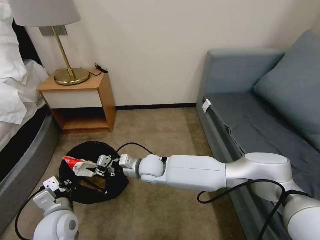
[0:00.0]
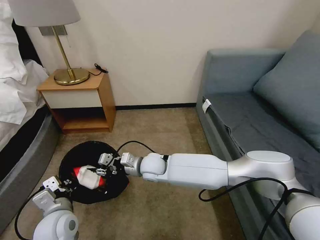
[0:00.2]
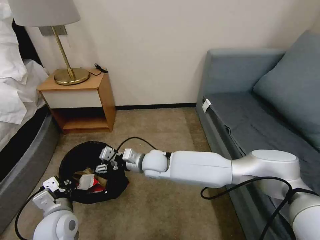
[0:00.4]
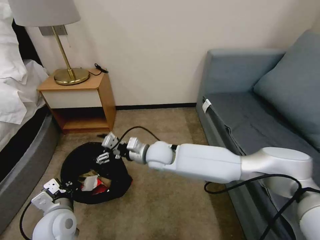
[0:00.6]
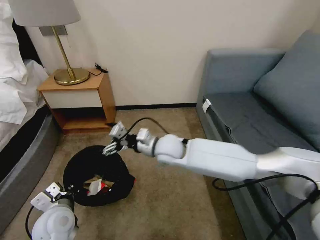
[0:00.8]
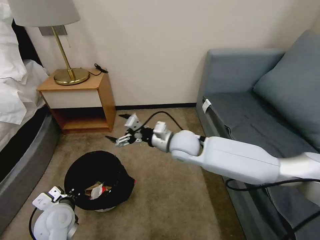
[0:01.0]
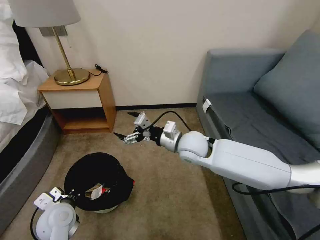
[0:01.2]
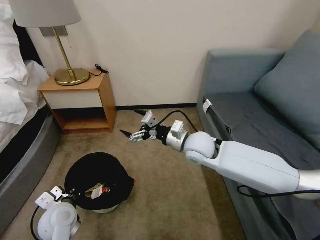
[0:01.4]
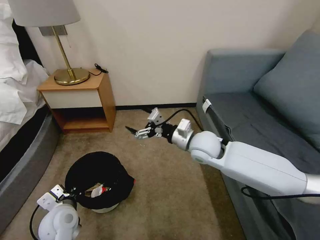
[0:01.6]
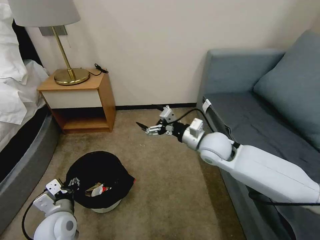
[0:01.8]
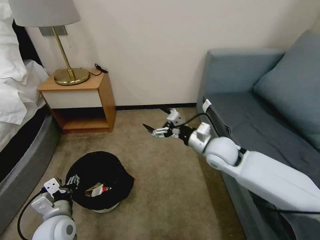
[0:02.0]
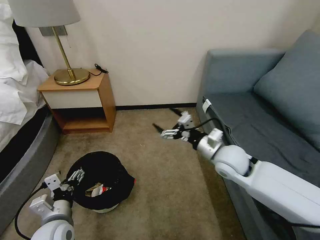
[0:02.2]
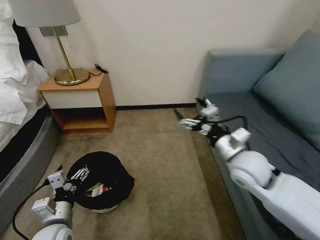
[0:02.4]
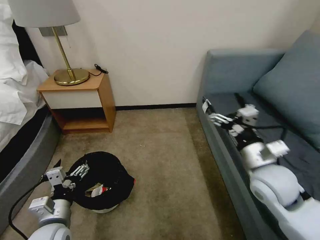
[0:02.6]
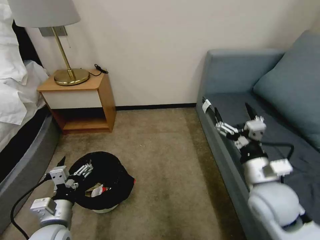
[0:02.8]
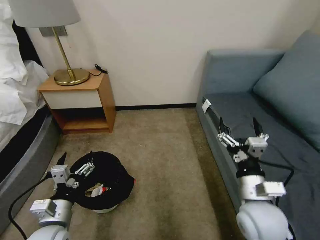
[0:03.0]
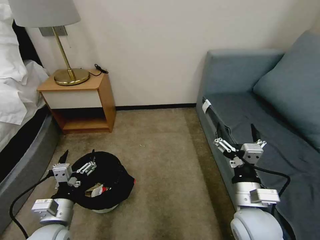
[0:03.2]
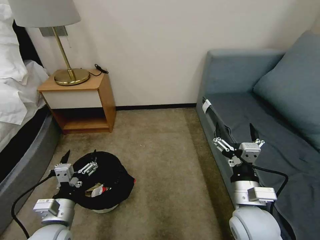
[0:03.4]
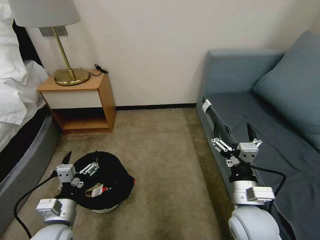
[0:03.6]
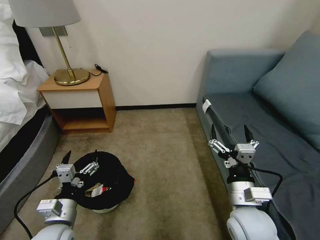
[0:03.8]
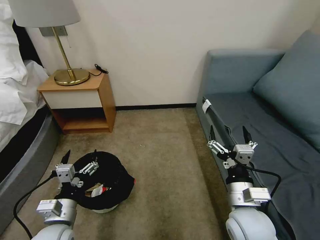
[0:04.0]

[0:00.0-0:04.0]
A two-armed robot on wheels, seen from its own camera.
Task of the whole recording: Pick up the trash bin, then pick up the garbage on the floor and place it into the trash bin.
0:00.0 to 0:01.4: The right gripper heads to the right and upward, covering about 20 cm, and opens up.
0:01.4 to 0:02.6: The right gripper travels to the right and backward by some 20 cm. The left gripper is displaced backward by about 5 cm, and opens up.
0:02.6 to 0:04.0: The right gripper is displaced backward, downward and to the left by some 15 cm.

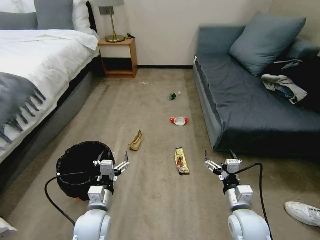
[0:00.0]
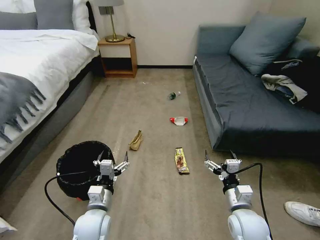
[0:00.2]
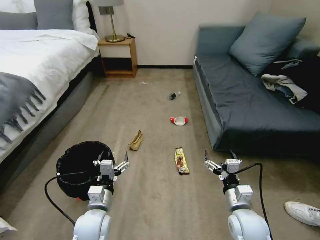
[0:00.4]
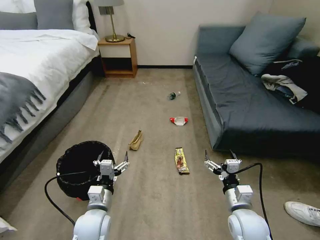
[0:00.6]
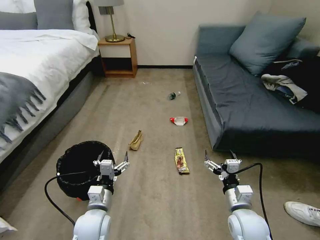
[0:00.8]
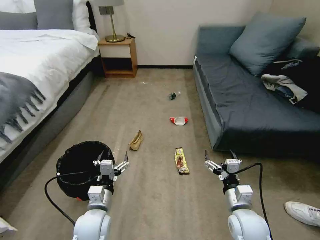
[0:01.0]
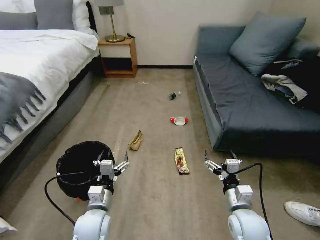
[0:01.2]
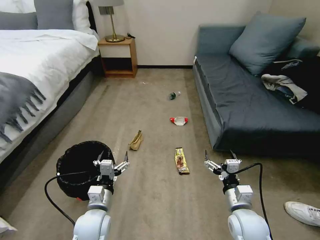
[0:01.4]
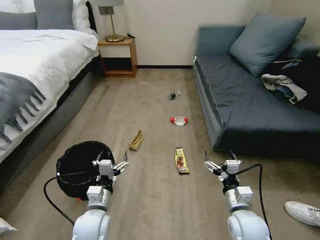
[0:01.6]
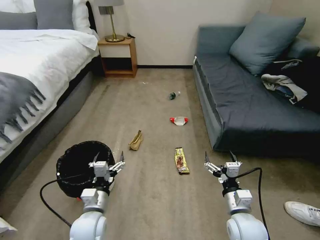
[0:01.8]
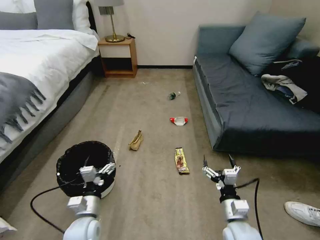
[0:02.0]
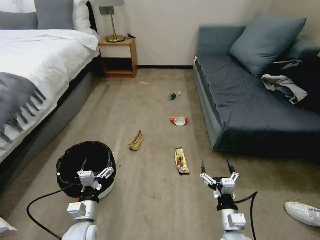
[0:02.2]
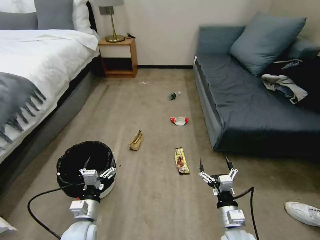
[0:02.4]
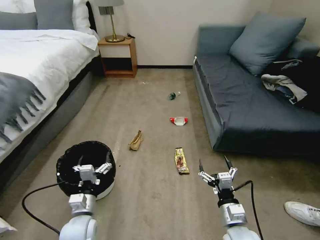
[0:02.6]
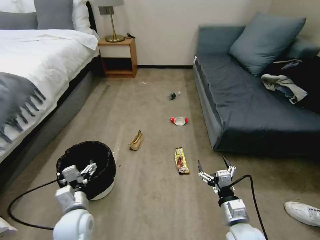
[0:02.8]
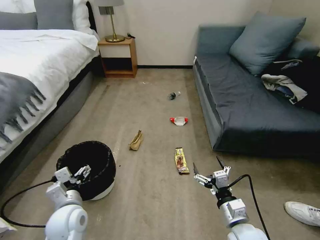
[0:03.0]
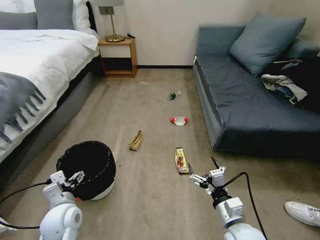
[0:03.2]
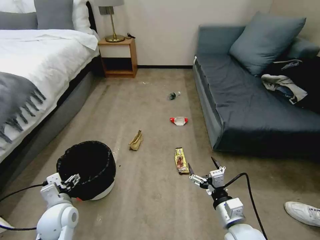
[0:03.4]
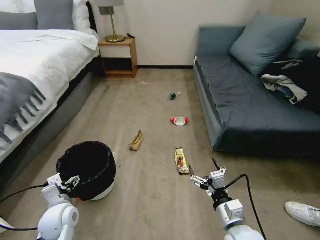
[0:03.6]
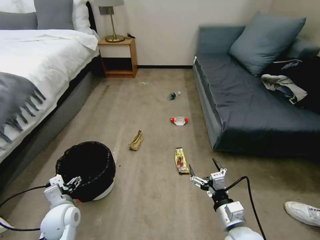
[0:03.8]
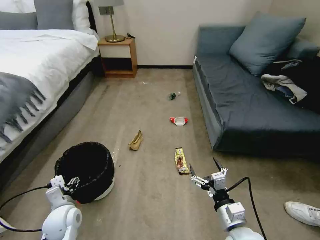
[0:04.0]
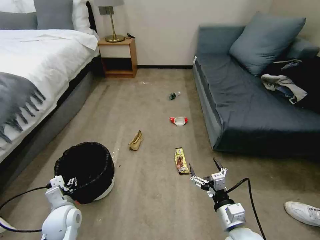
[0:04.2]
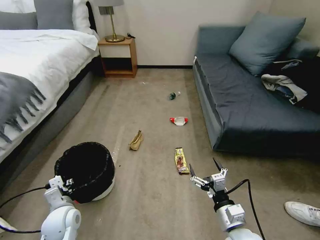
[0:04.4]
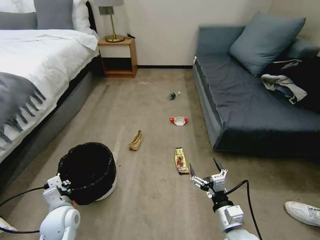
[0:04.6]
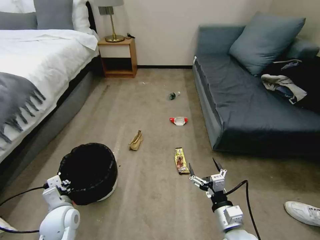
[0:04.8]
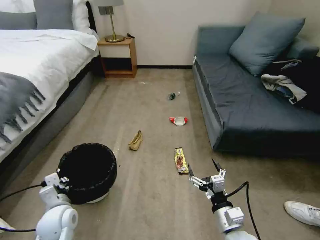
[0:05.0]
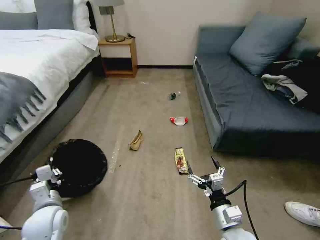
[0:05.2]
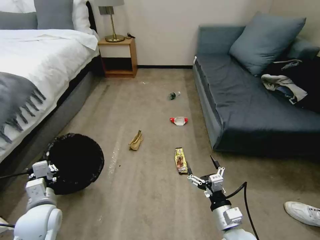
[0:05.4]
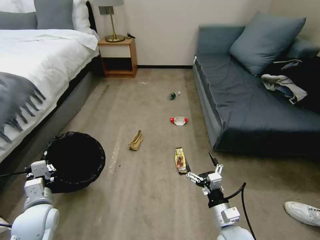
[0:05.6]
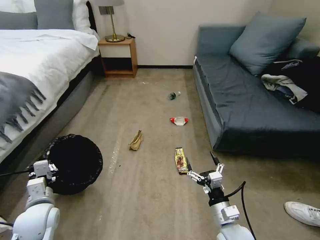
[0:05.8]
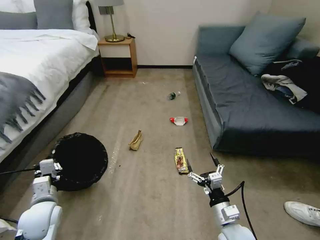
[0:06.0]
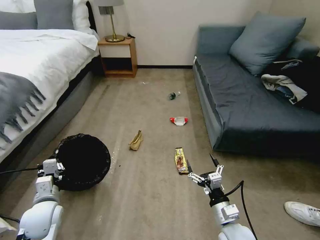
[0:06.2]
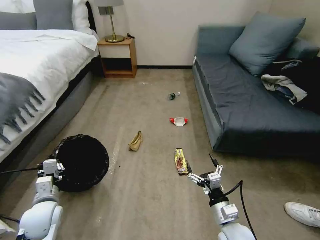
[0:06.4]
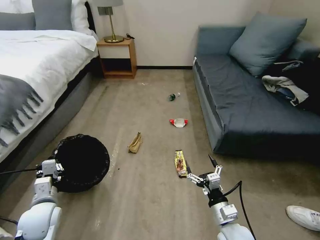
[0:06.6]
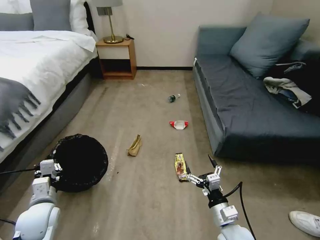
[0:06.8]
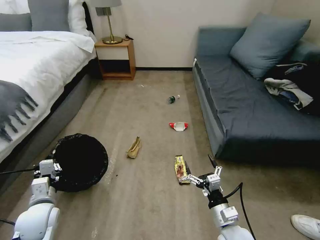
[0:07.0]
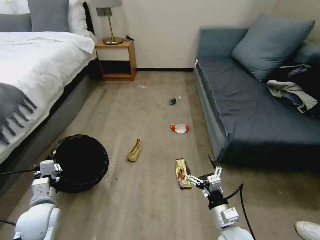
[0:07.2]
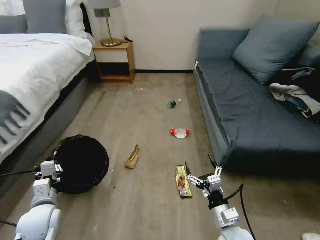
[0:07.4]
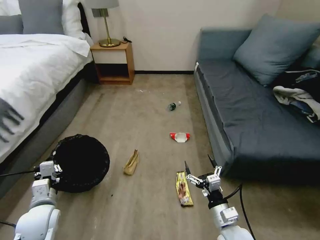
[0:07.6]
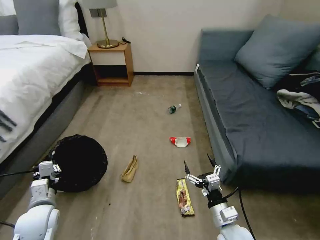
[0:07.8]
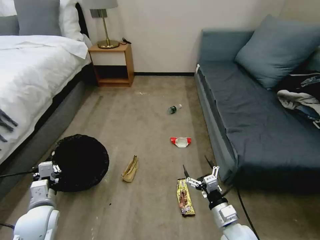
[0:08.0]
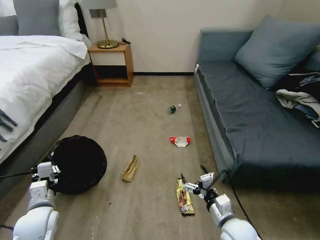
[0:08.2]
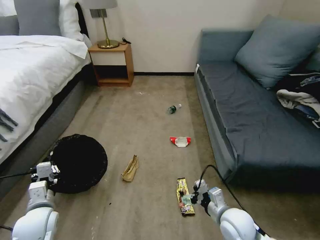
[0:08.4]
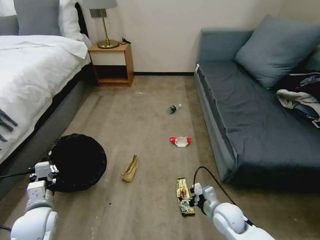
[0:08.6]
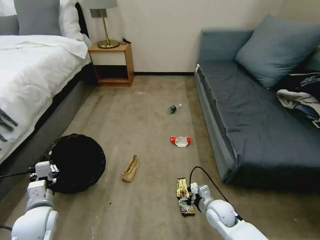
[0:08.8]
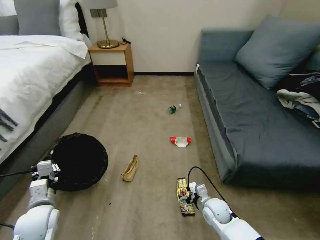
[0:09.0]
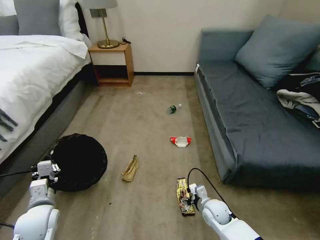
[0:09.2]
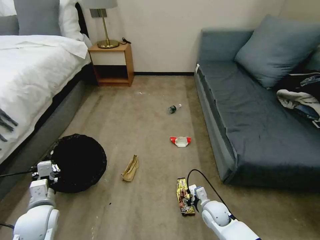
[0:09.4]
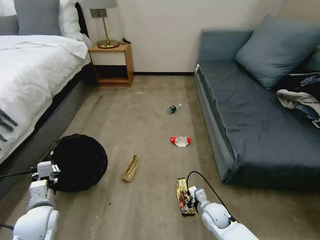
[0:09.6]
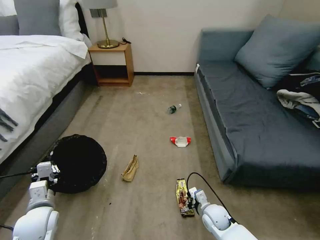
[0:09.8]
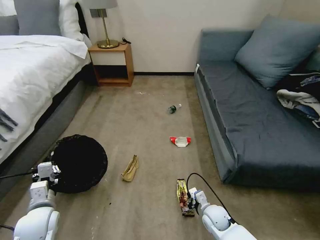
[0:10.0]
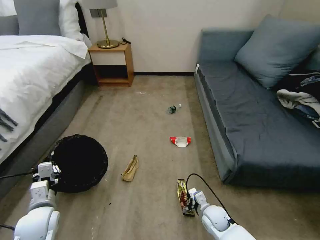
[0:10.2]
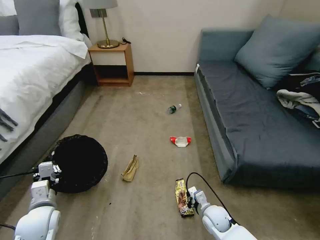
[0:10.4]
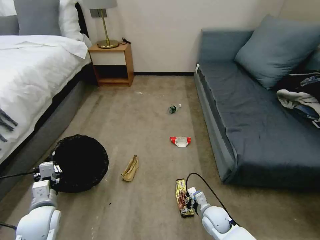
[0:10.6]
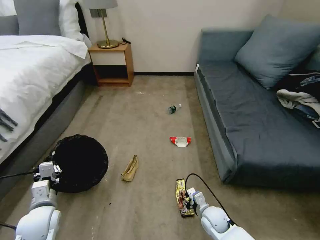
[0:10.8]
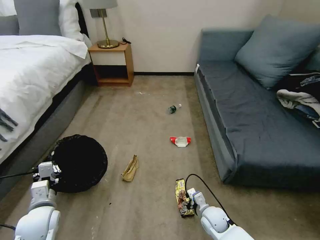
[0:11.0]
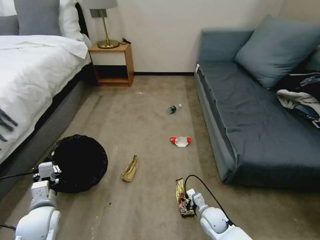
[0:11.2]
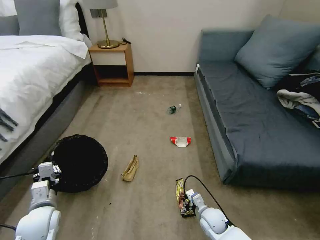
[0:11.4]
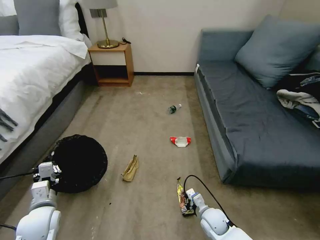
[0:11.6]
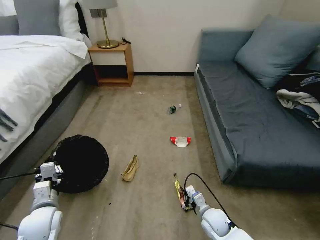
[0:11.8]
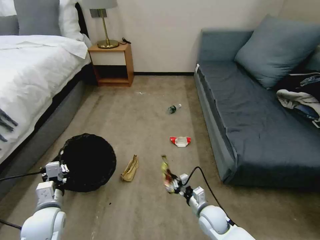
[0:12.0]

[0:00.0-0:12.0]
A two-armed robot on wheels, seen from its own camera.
Task of the whole recording: Pick up the trash bin, then pick up the garbage on the floor and place it into the trash bin.
0:01.6 to 0:03.0: The left gripper travels to the left by approximately 5 cm.
0:03.0 to 0:04.4: The left gripper ends up approximately 5 cm from where it was, and closes its fingers.
0:04.4 to 0:06.0: The left gripper shifts by roughly 5 cm, and closes.
0:07.6 to 0:09.0: The right gripper goes some 15 cm forward and downward.
0:09.0 to 0:10.4: The right gripper closes its fingers.
0:10.4 to 0:12.0: The right gripper opens, then closes again.

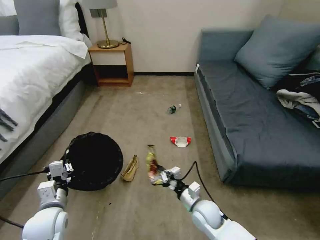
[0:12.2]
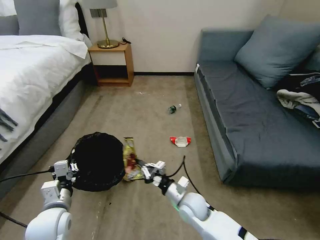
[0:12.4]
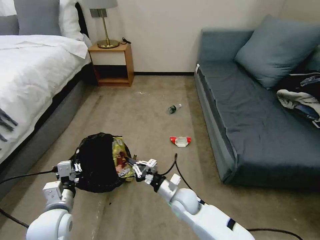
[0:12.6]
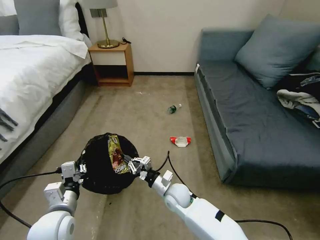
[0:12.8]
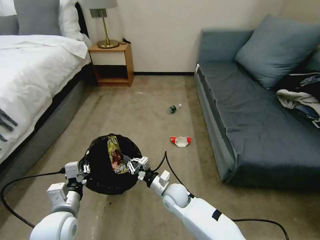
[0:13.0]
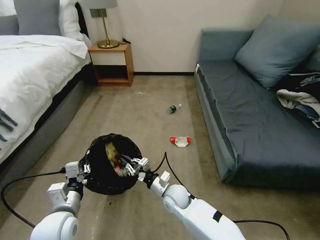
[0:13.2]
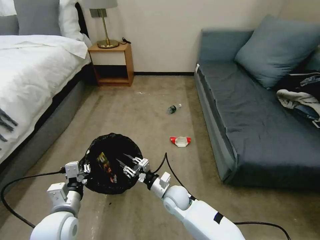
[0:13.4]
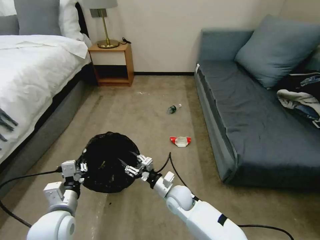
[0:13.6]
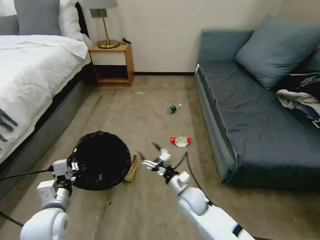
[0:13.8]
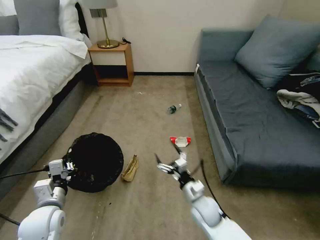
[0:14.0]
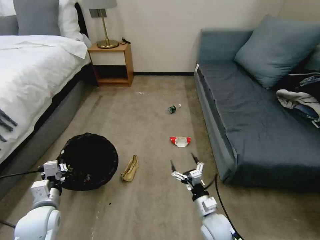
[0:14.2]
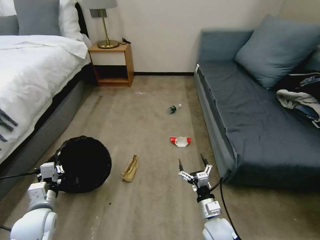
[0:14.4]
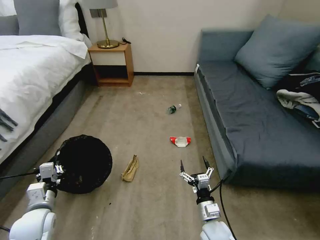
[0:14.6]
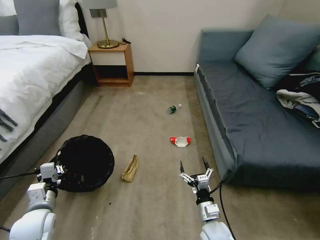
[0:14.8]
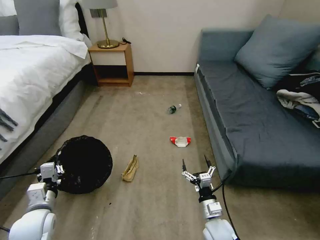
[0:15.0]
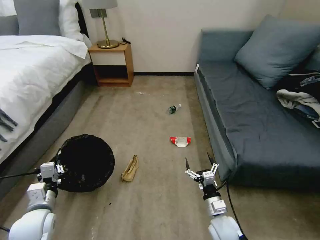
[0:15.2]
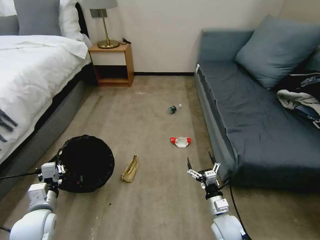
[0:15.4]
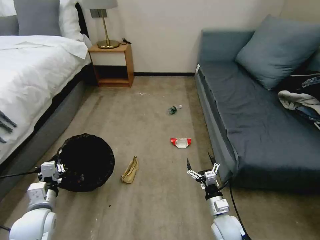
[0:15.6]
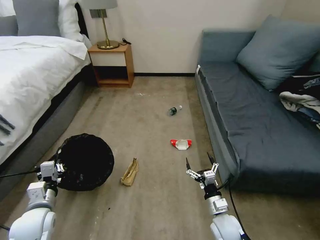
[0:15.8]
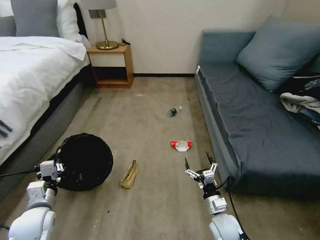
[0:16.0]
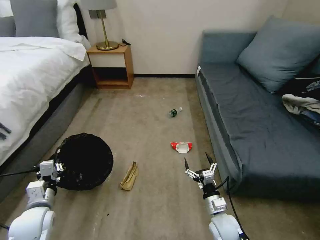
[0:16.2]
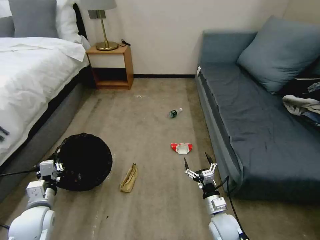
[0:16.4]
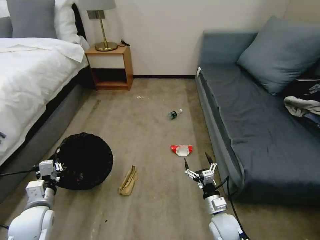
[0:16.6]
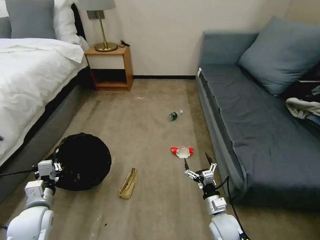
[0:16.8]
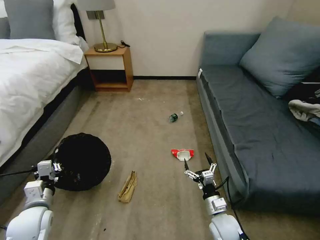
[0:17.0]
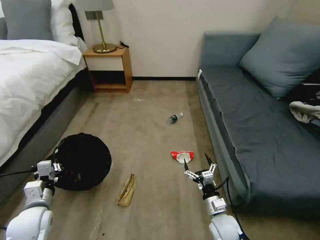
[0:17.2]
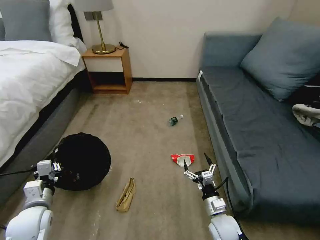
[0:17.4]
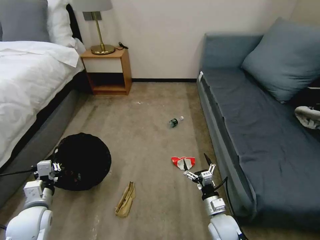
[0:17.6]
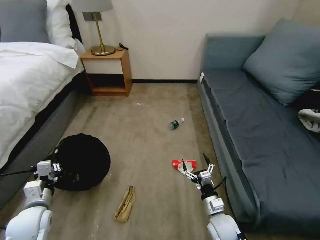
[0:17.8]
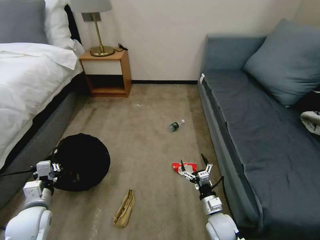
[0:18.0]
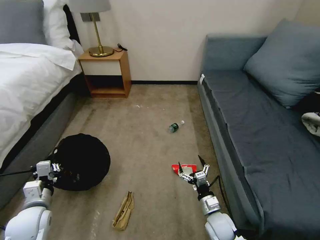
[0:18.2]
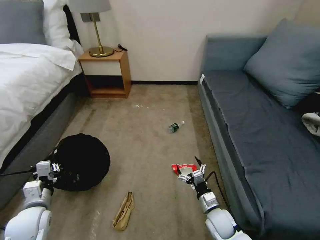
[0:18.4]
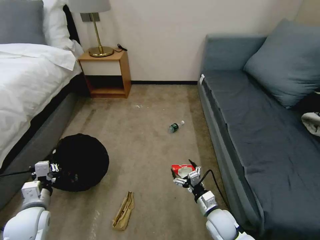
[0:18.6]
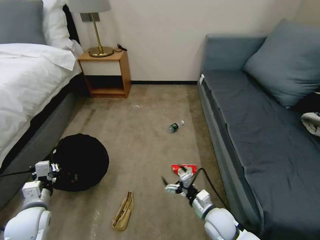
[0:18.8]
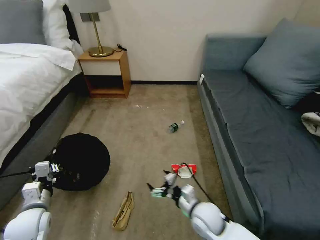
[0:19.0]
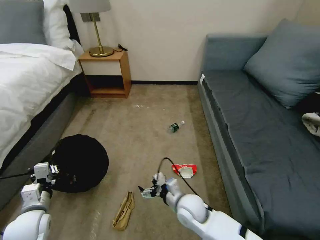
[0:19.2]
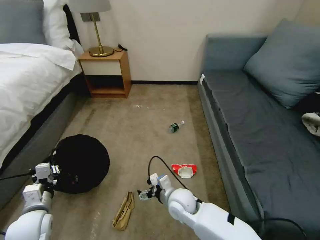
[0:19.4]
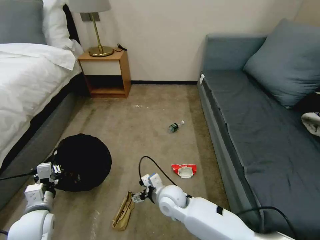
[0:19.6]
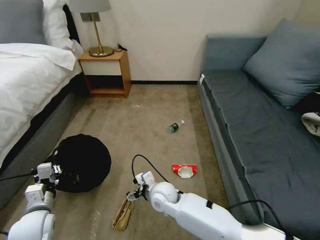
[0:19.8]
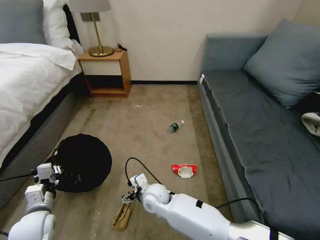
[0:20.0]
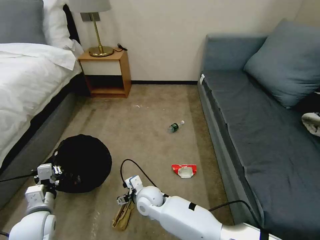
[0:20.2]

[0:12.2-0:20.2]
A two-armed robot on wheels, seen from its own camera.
Task of the whole recording: Pick up the trash bin, then pick up the garbage on the floor and place it into the trash bin.
0:12.2 to 0:13.8: The right gripper opens.
0:13.8 to 0:15.4: The right gripper goes roughly 15 cm to the right and backward. Meanwhile the left gripper shifts approximately 5 cm to the left.
0:18.6 to 0:20.2: The right gripper shifts approximately 25 cm to the left.
